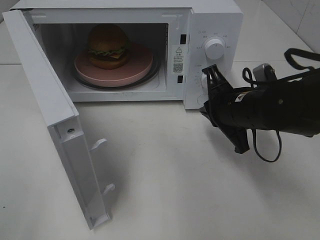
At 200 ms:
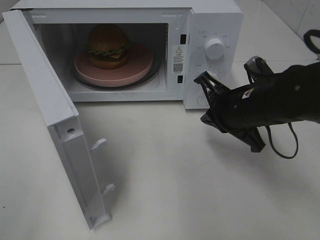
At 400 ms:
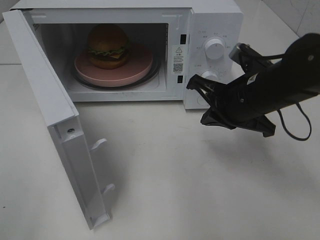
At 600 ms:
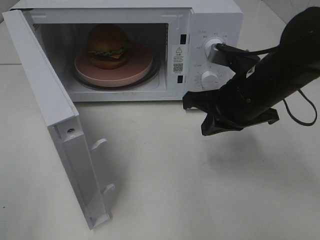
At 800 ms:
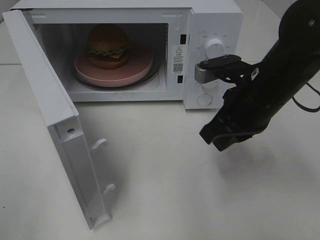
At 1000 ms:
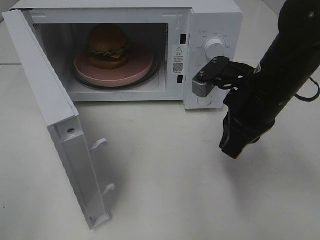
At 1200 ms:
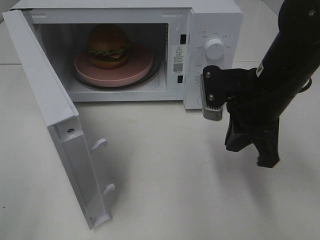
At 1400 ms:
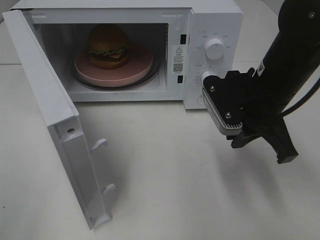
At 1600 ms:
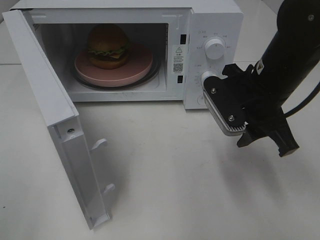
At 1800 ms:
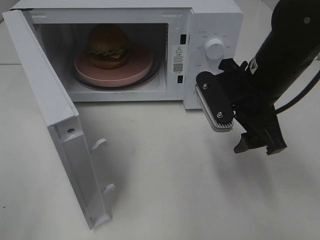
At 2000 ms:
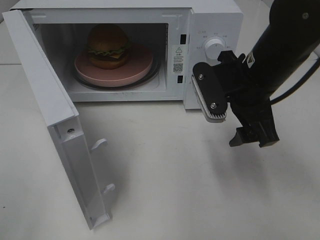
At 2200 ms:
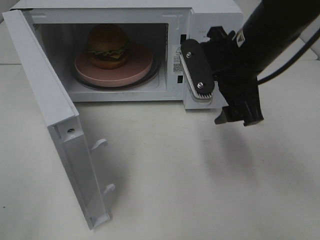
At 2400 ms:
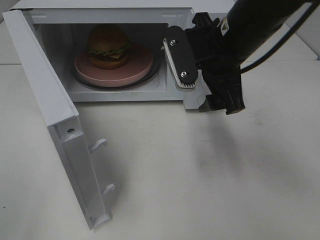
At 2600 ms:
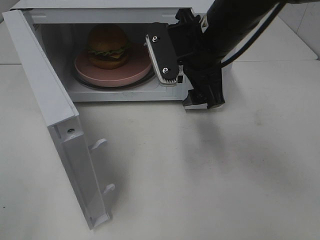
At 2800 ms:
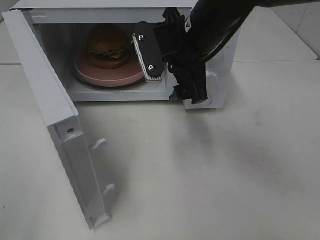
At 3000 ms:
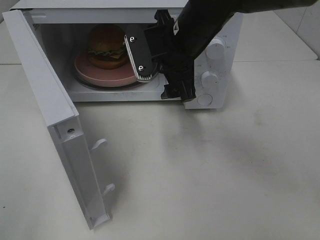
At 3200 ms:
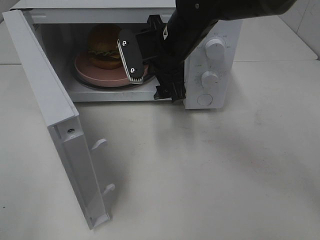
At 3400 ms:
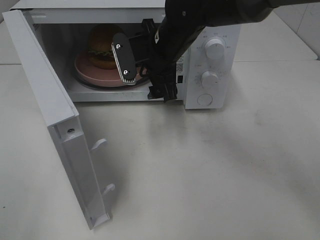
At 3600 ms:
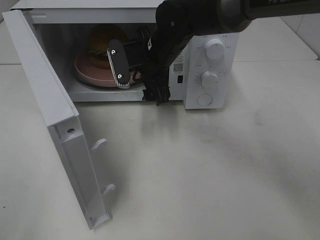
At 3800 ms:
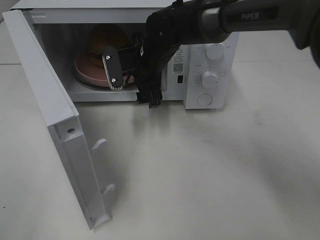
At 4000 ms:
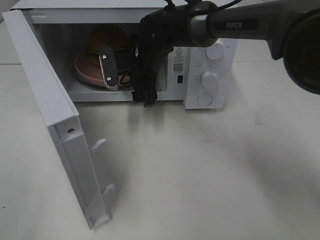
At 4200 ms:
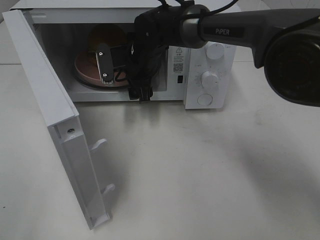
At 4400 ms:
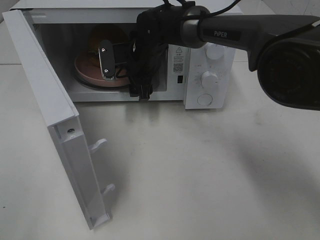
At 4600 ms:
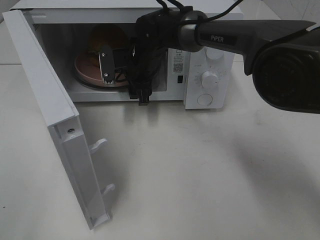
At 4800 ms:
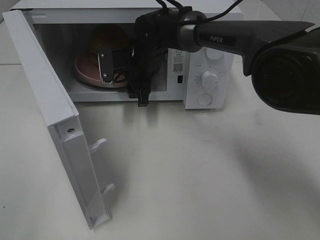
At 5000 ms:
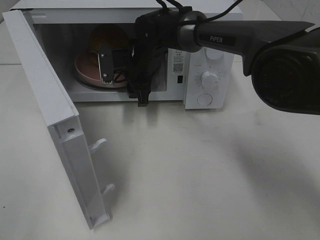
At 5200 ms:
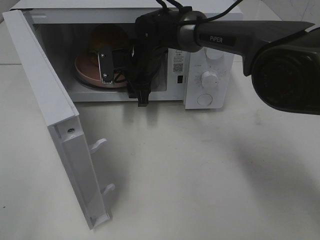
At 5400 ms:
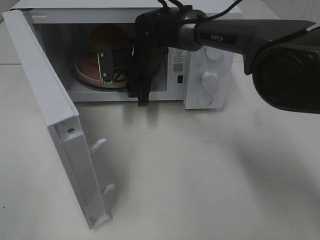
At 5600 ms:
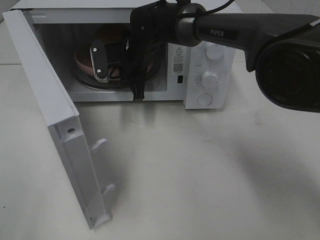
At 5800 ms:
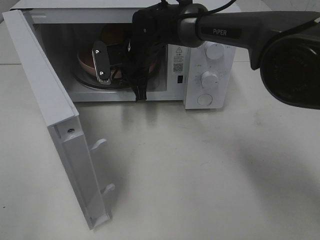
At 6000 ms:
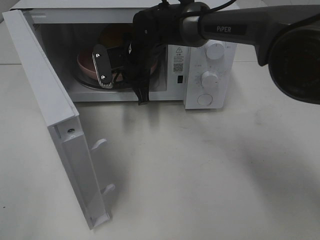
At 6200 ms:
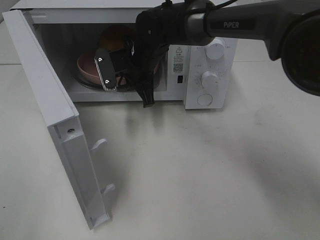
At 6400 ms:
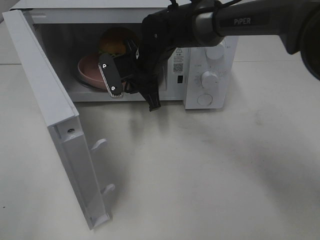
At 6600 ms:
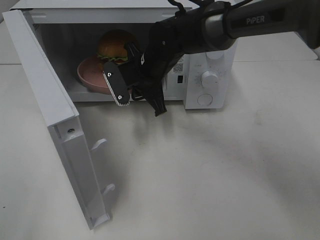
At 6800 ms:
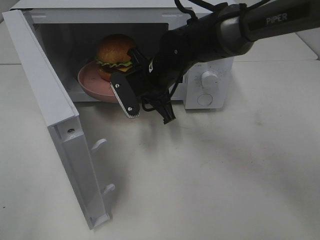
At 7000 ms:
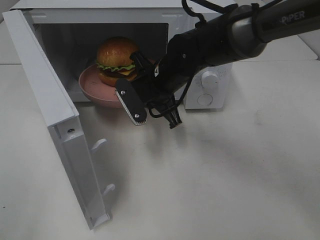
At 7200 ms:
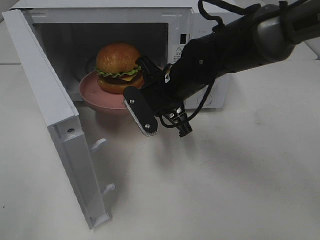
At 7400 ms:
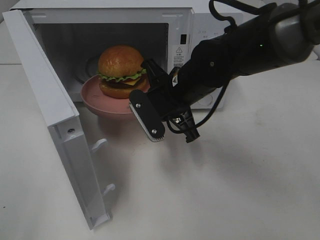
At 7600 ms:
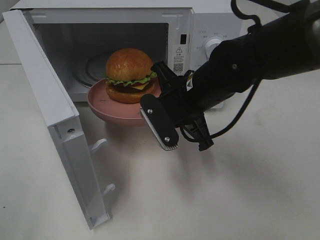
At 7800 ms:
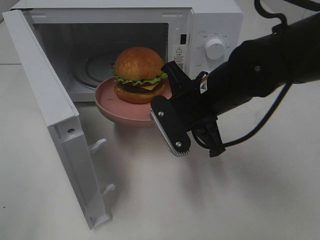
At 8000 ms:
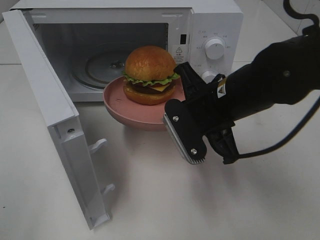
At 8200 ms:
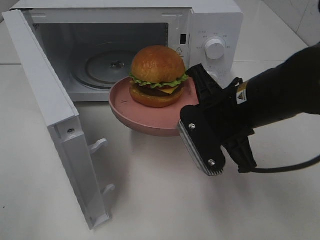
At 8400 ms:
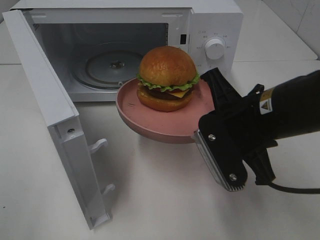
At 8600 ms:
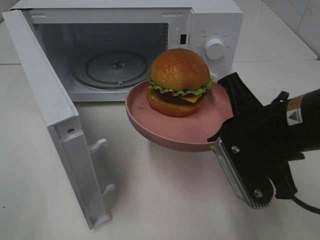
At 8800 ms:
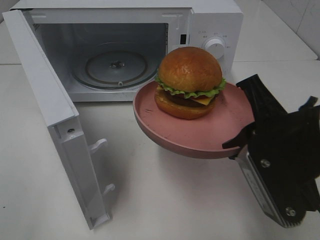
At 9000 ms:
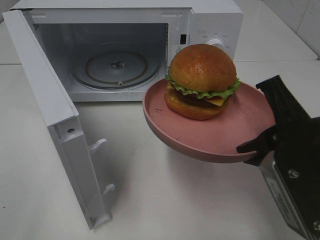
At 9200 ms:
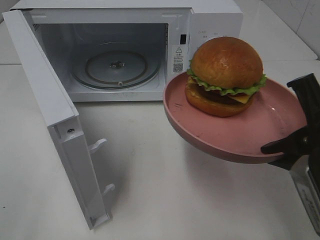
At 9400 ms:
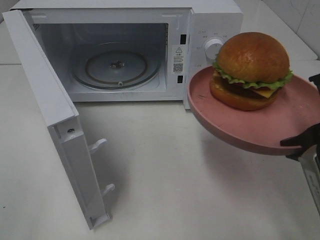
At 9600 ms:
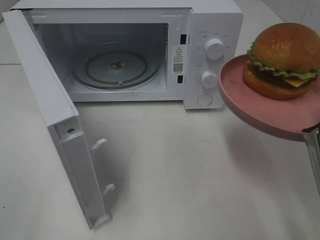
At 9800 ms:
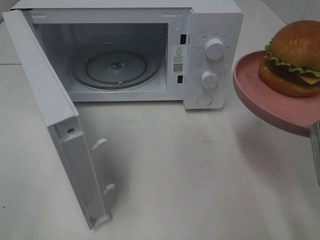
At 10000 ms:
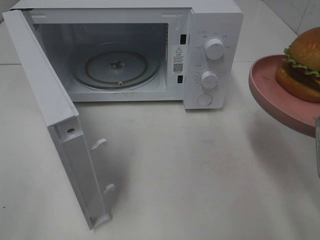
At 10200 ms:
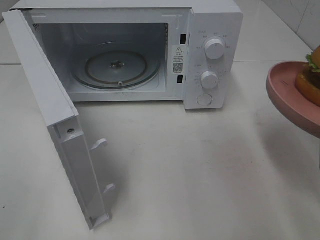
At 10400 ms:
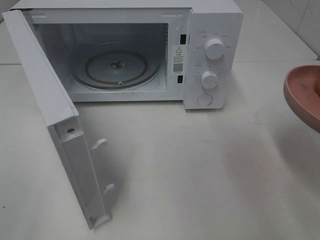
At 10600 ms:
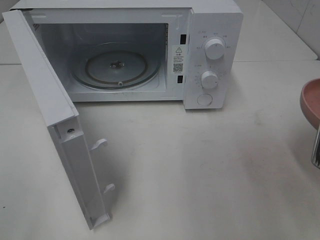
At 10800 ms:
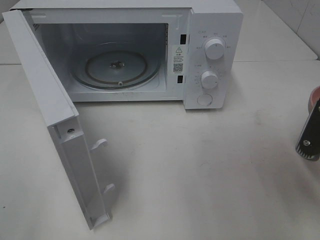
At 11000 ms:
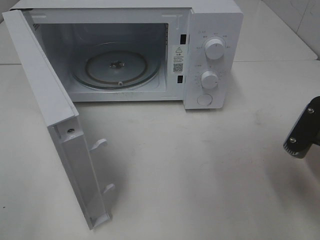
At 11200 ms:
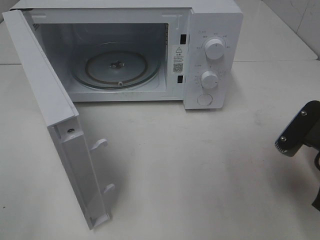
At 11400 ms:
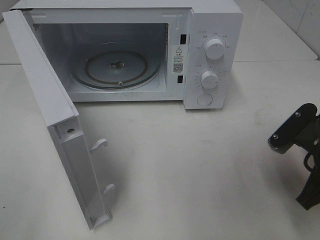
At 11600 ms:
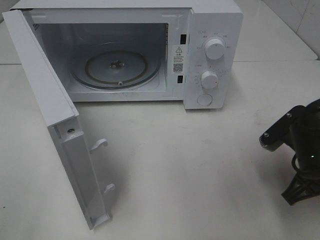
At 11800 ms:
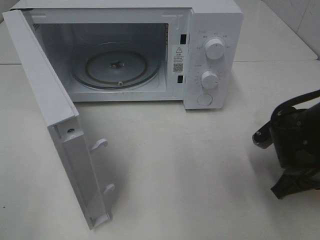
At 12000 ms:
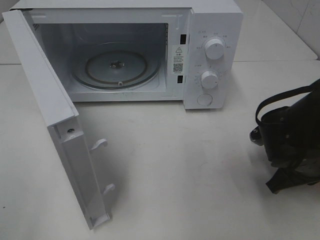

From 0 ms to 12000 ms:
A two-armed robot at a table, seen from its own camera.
Task of the whole recording: Heat the burger.
Step, from 0 ms to 5600 ms: Right hand: grab the plate with the hamburger.
From 0 ms to 1600 ms: The right gripper travels upward by roughly 5 cm, and opens up.
From 1600 ms to 3000 ms: The right gripper moves to the left and forward, some 15 cm, and opens its fingers.
From 3000 ms to 4400 ms: The right gripper travels forward, downward and to the left by some 15 cm.
From 4400 ms to 6000 ms: The right gripper closes up.
From 6000 ms to 7600 ms: The right gripper heads backward and to the right, covering some 15 cm.
From 7600 ms to 9000 ms: The right gripper is displaced backward and to the right by approximately 20 cm.
From 9000 ms to 10400 ms: The right gripper goes some 5 cm to the right.
From 10400 ms to 12000 ms: The right gripper shifts about 15 cm downward and forward.

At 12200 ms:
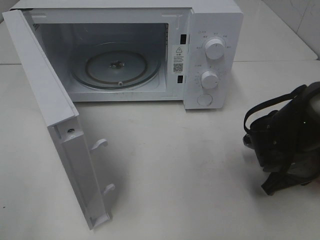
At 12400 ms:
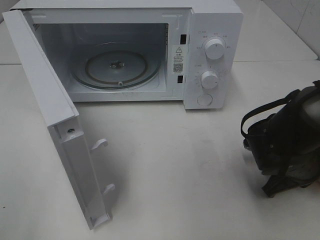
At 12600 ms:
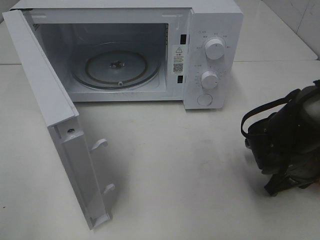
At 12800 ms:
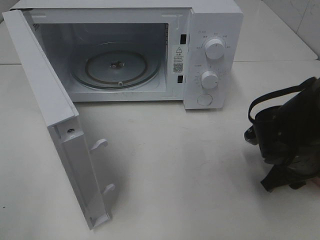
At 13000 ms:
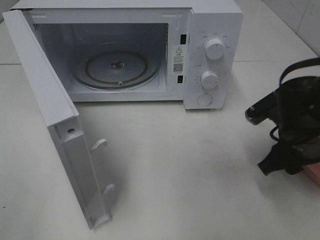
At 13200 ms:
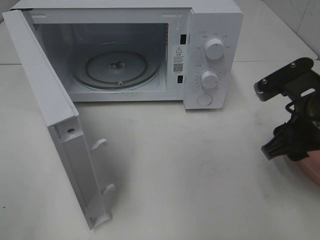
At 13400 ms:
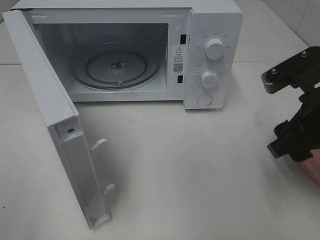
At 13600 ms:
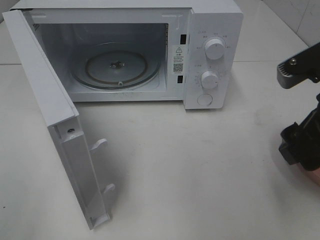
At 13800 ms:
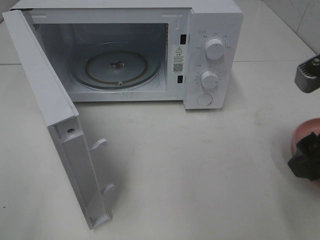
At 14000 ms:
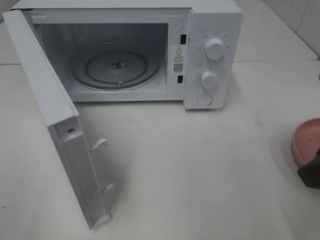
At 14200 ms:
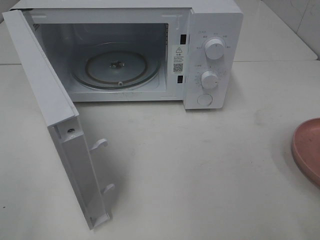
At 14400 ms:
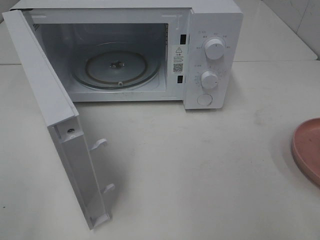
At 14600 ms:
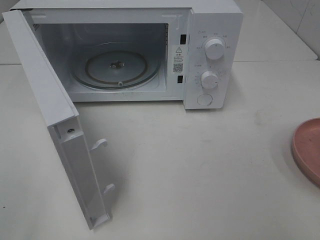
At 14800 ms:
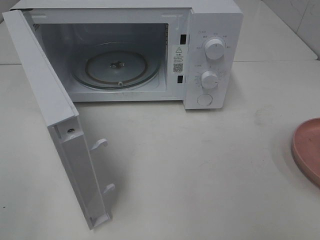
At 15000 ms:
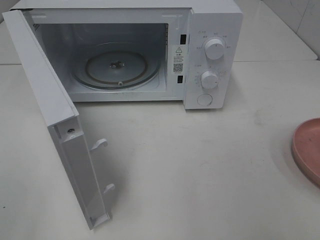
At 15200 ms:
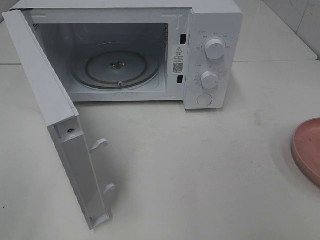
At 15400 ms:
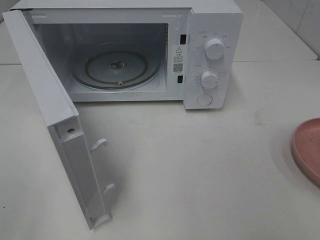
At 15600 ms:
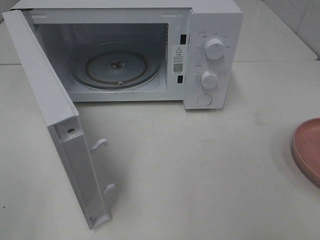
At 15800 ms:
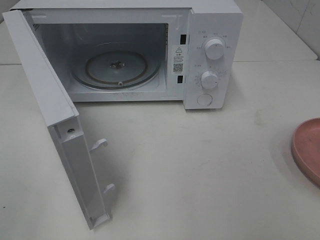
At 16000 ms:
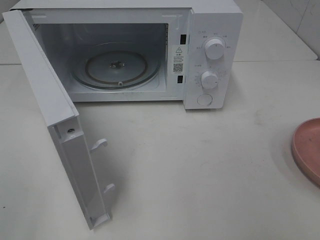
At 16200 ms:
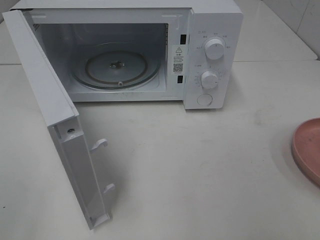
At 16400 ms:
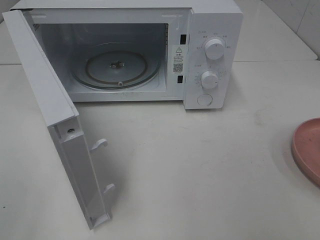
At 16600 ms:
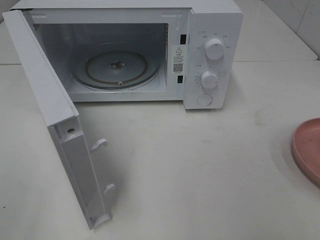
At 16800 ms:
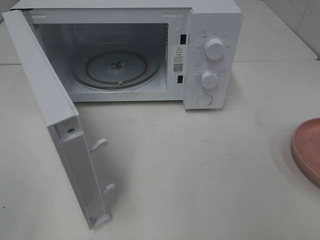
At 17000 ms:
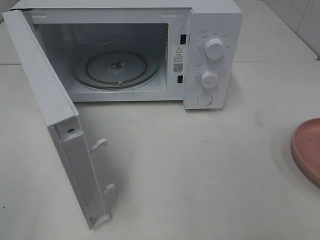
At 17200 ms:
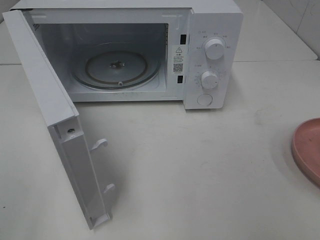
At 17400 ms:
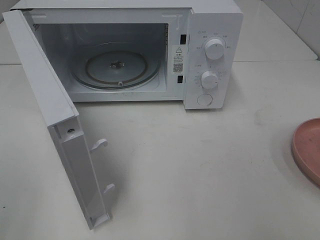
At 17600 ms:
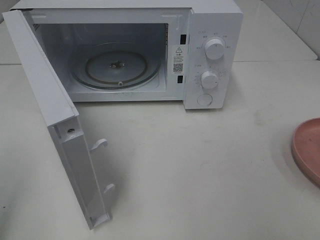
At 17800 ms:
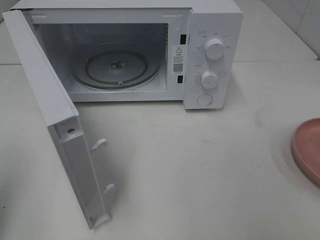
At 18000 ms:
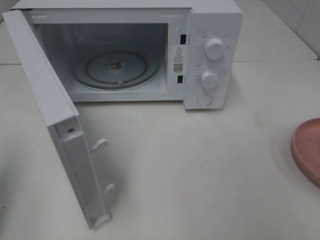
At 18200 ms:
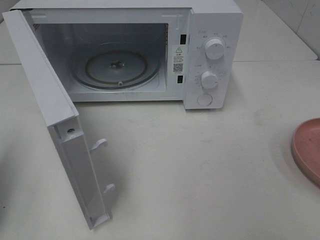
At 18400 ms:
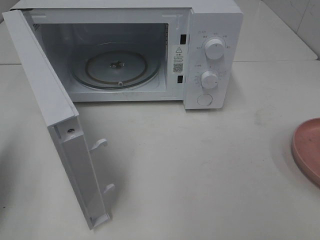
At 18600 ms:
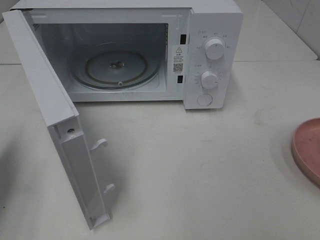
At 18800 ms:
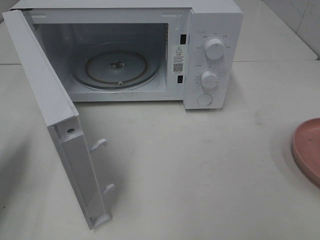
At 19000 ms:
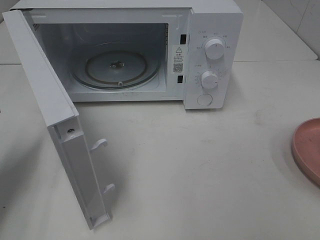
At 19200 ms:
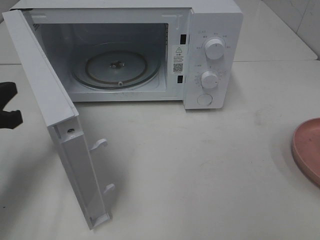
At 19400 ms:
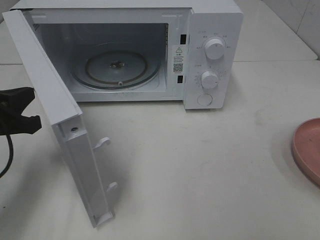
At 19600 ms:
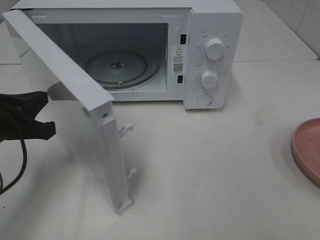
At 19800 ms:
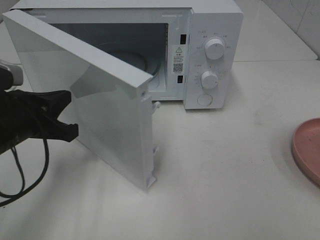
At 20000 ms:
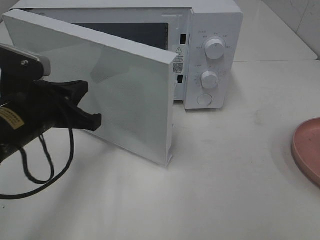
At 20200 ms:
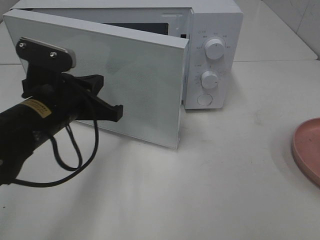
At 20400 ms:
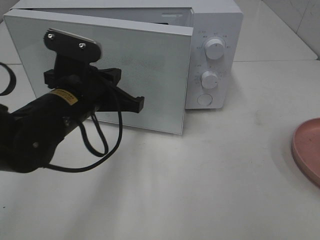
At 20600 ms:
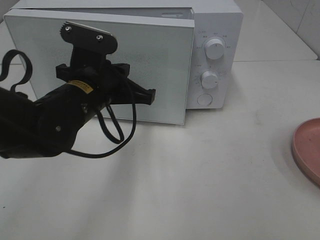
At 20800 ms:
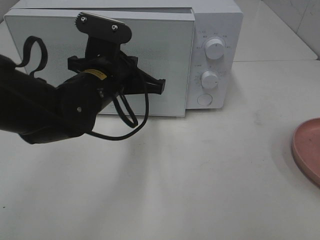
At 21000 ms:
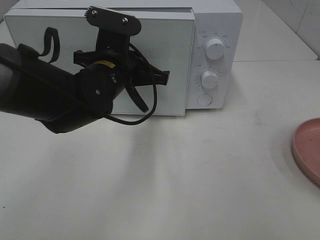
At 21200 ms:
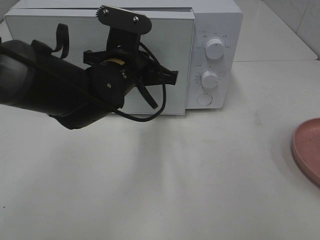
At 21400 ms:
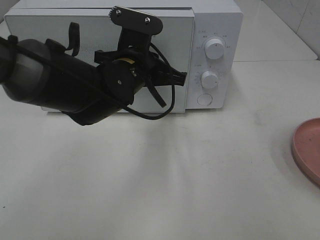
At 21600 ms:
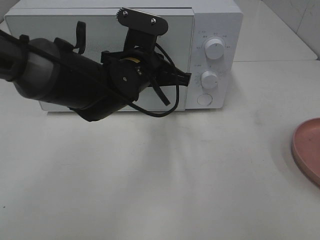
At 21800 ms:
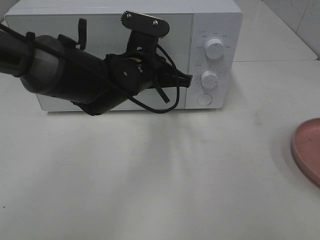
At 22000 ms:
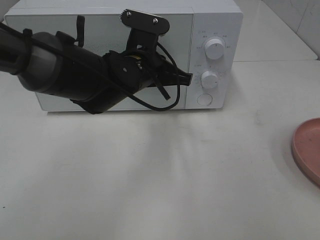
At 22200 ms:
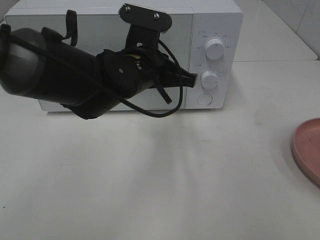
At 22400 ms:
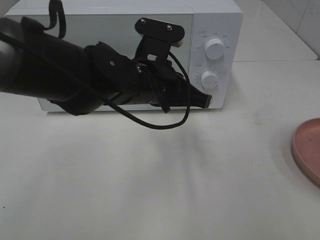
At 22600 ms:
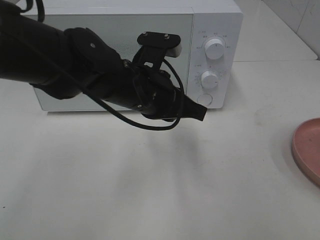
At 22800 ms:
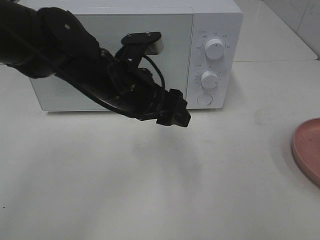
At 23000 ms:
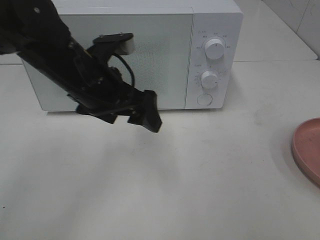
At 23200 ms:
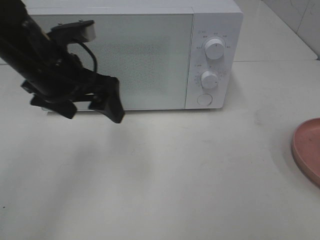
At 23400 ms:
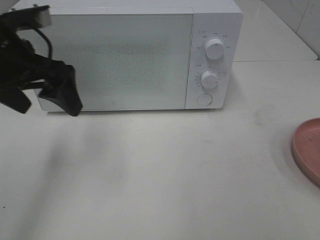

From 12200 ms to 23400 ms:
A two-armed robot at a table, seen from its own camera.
Task of the whole recording: Heat the burger.
Step, from 13200 ms to 22400 ms: Left hand: close the microwave door.
From 12200 ms to 13800 ms: The right gripper is displaced upward and backward by roughly 20 cm, and opens.
From 13800 ms to 15400 ms: The right gripper moves backward and to the right, roughly 15 cm.
From 15400 ms to 17000 ms: Neither gripper changes place.
From 17000 ms to 18600 ms: The left gripper is displaced forward by some 20 cm, and closes its fingers.
From 18600 ms to 20200 ms: The left gripper heads to the right, covering approximately 20 cm.
From 20200 ms to 21800 ms: The left gripper heads to the right and forward, covering approximately 15 cm.
From 21800 ms to 23400 ms: The left gripper shifts roughly 20 cm to the left and upward, and opens.
